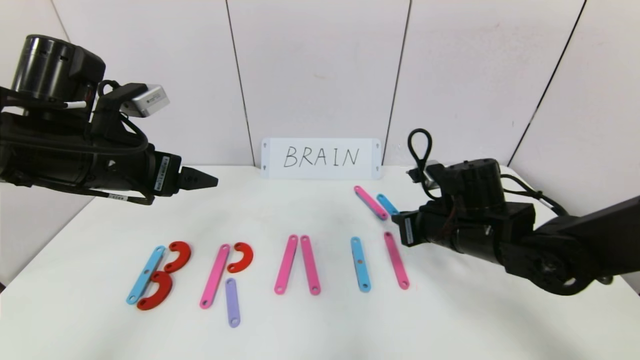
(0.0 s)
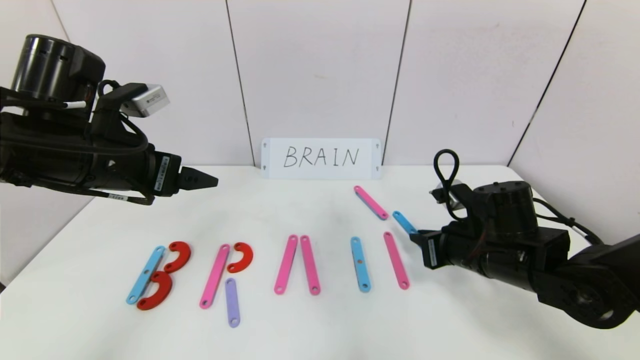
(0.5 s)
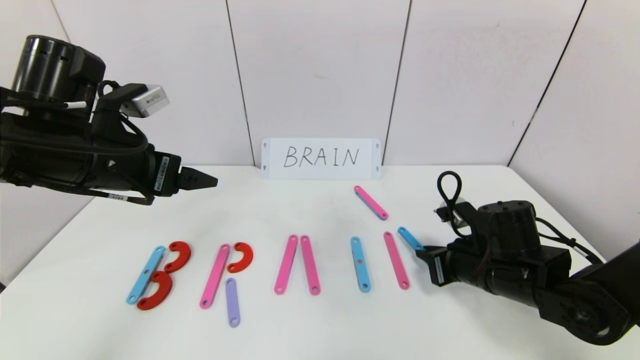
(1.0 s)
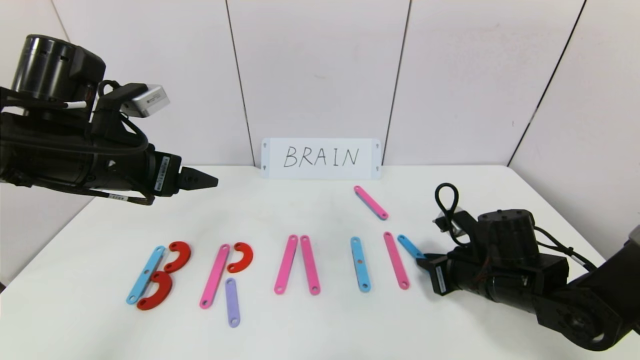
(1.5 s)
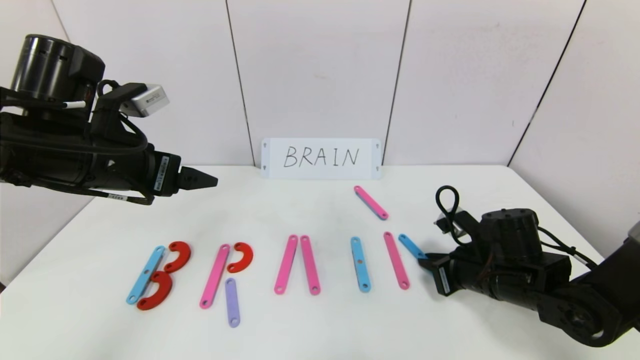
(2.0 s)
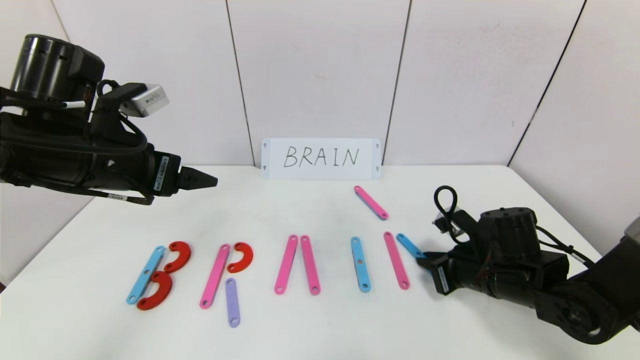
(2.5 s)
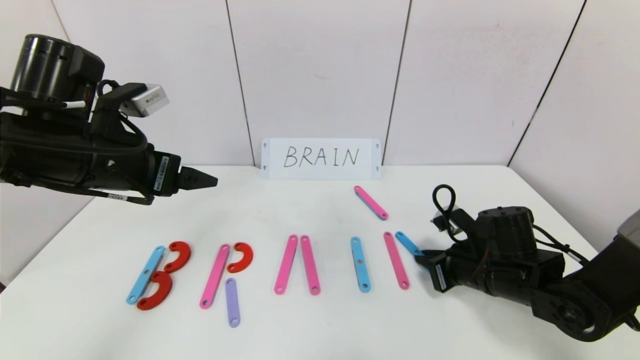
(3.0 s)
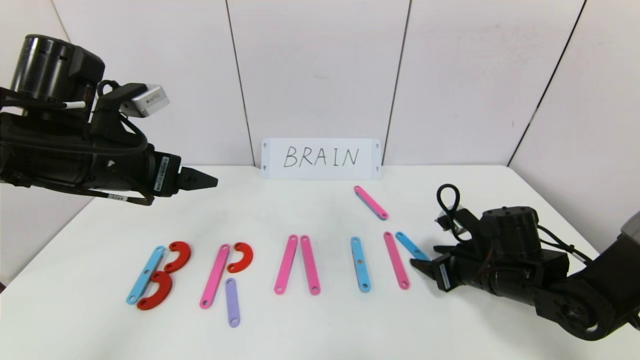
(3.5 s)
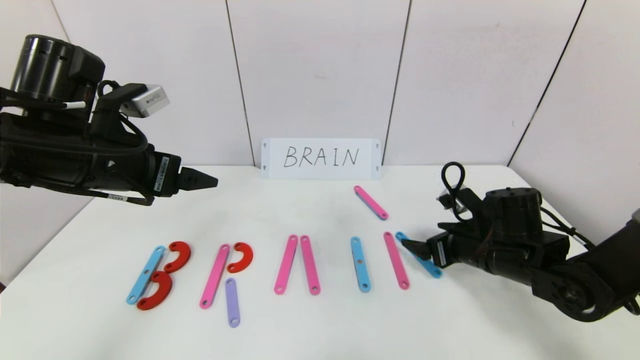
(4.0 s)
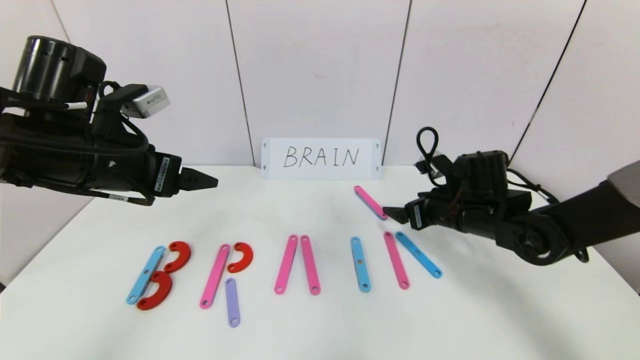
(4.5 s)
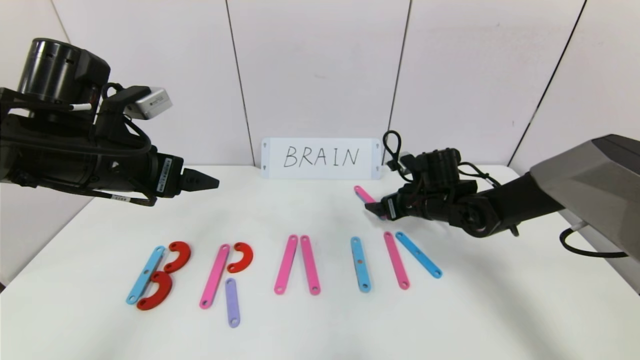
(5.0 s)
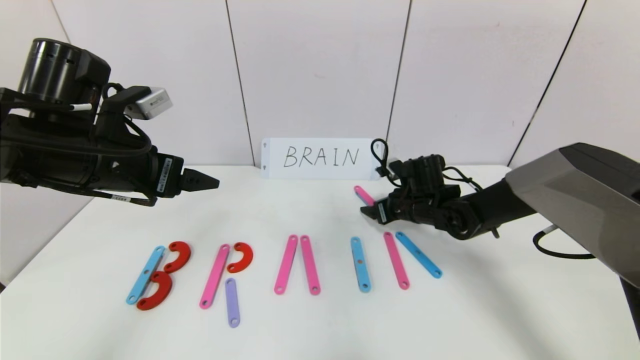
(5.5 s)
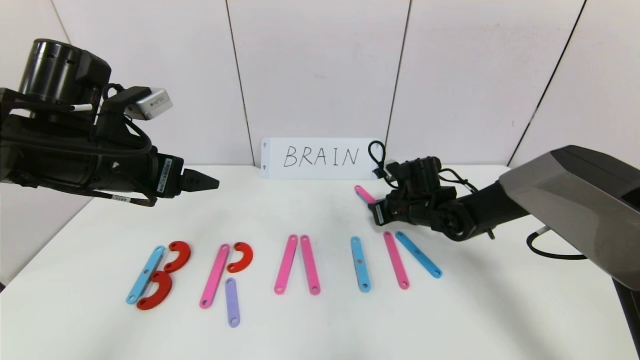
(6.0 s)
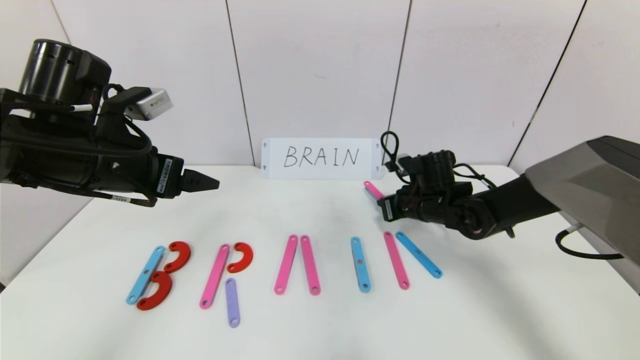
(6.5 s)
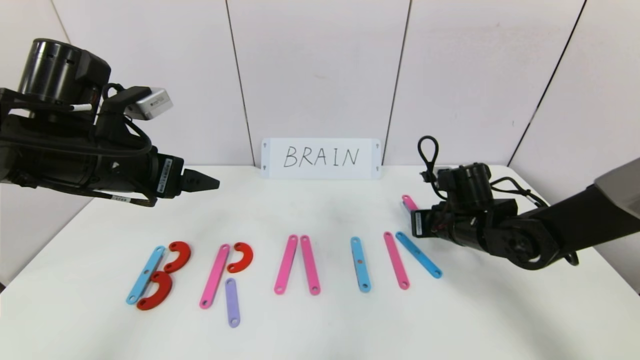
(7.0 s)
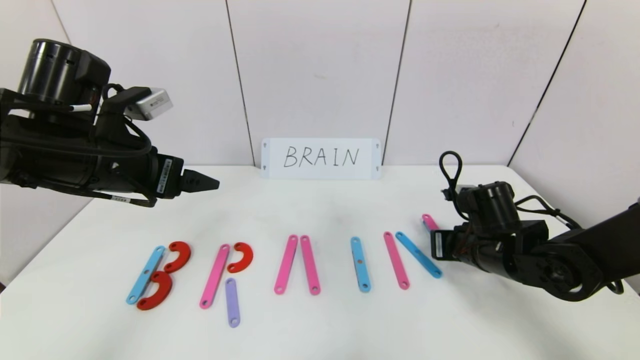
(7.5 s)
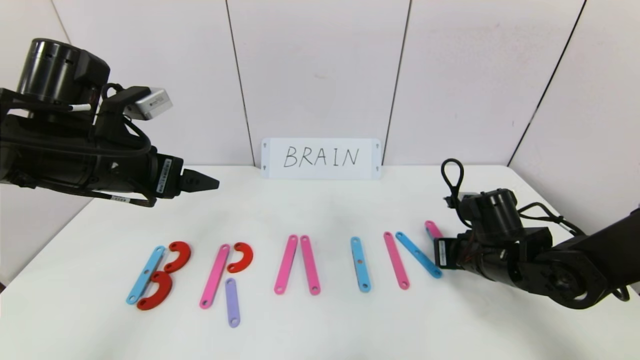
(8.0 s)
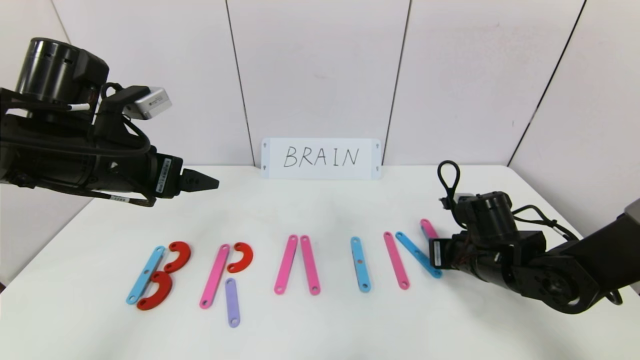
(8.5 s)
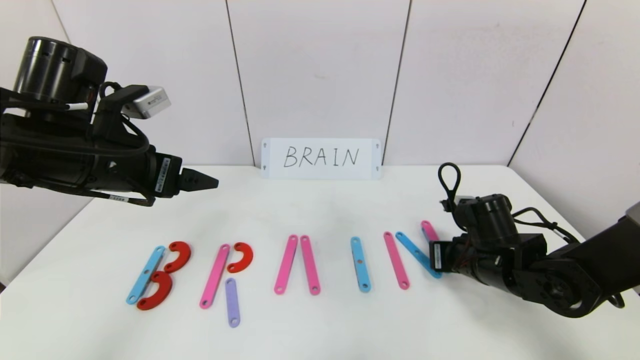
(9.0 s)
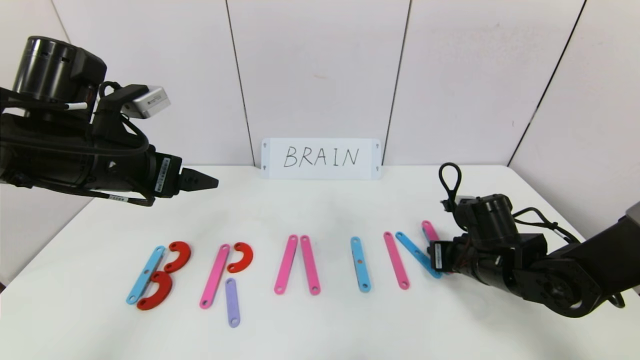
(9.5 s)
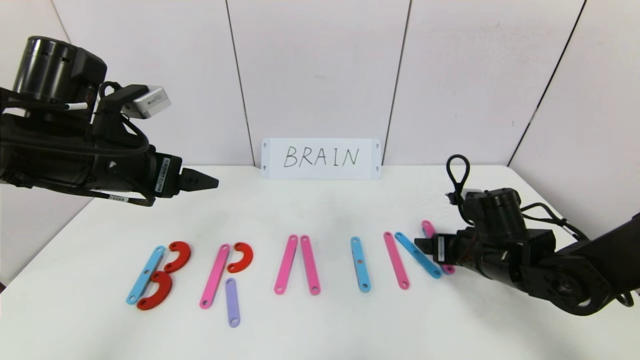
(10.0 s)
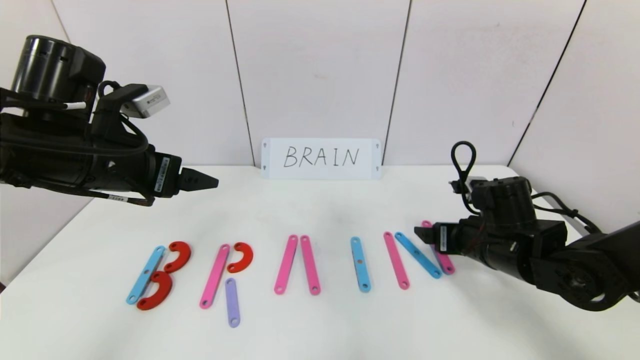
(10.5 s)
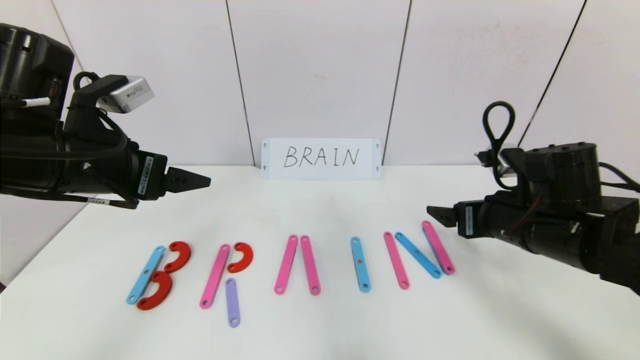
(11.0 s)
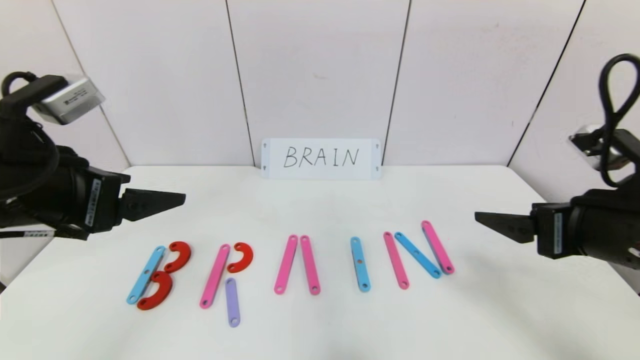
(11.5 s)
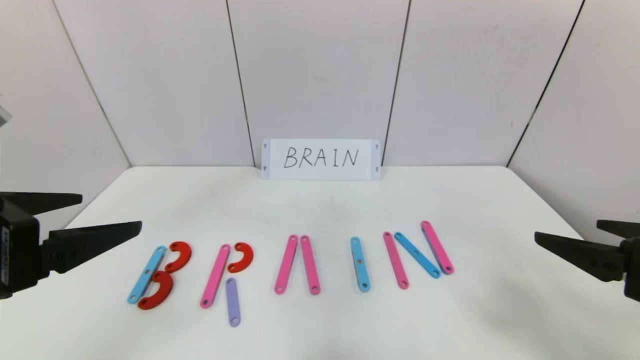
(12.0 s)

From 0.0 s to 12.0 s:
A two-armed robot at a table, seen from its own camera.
Task of the whole recording: rearrange the word baai as brain.
Step, from 0.0 s to 11.0 s: Place the character N after character I.
From 0.0 s to 2.0 s: The right gripper goes about 10 cm downward and to the right.
From 2.0 s to 4.0 s: The right gripper opens its fingers.
From 4.0 s to 6.0 s: The right gripper moves forward and to the left, roughly 15 cm, and closes.
From 6.0 s to 8.0 s: The right gripper moves backward and to the right, roughly 15 cm.
From 8.0 s to 10.0 s: The right gripper opens its fingers.
From 10.0 s to 12.0 s: The left gripper heads backward, covering about 15 cm. The right gripper shifts about 25 cm backward and upward.

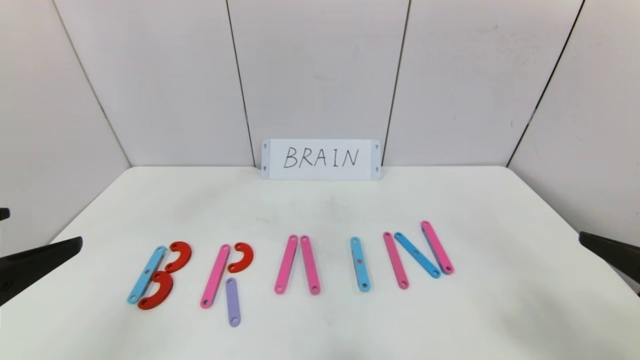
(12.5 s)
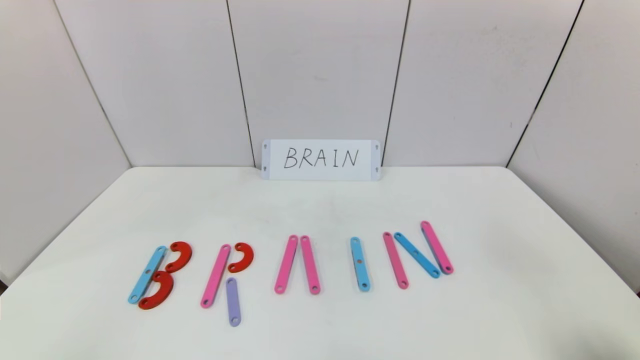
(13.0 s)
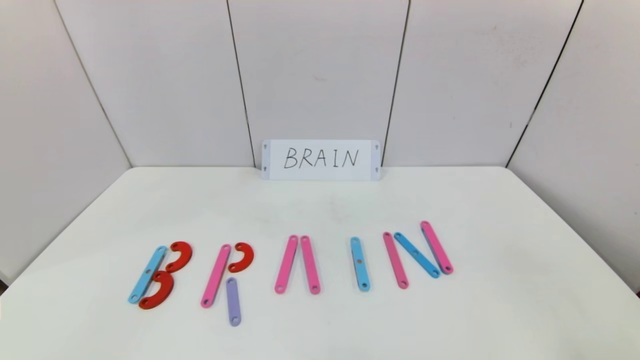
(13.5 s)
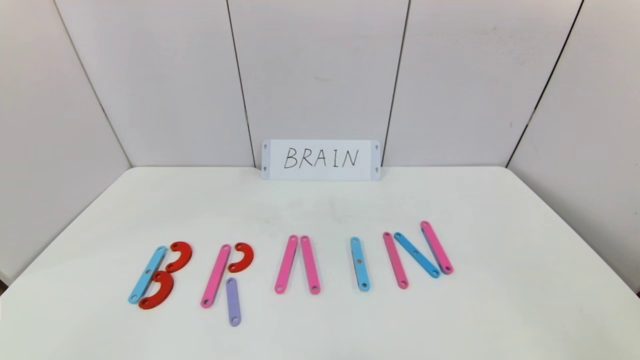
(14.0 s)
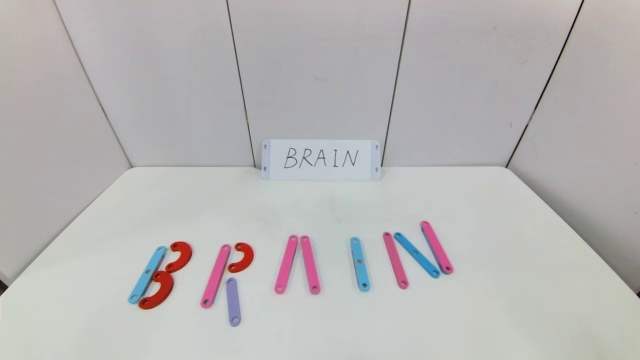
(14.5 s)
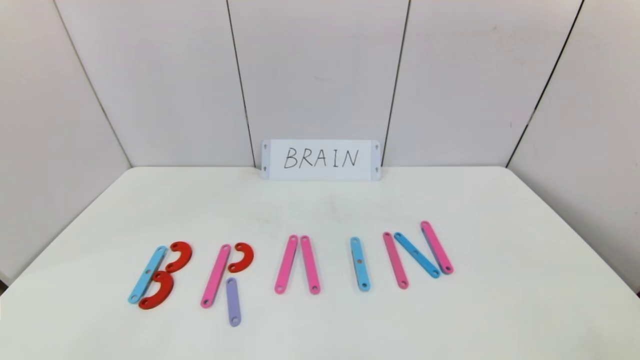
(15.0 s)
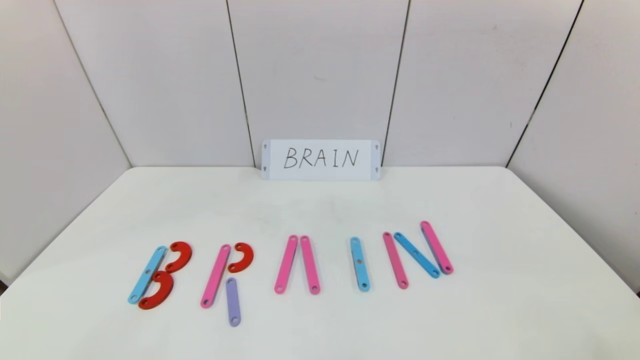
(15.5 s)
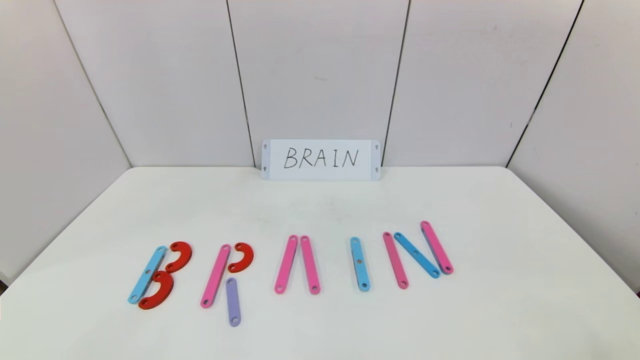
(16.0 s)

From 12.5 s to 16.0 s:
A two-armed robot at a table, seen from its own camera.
Task of the whole recording: rearrange the word baai as brain.
From 12.5 s to 14.5 s: The left gripper is displaced downward and backward by roughly 20 cm. The right gripper goes some 15 cm backward and downward.
